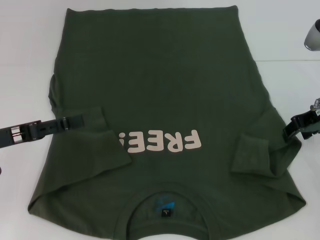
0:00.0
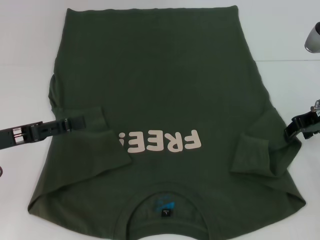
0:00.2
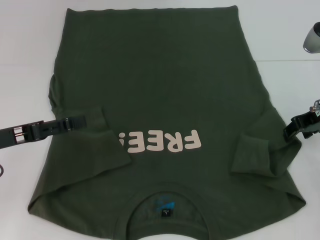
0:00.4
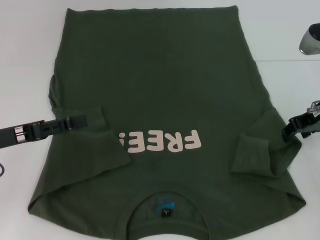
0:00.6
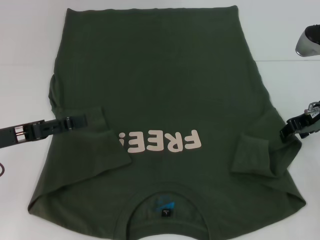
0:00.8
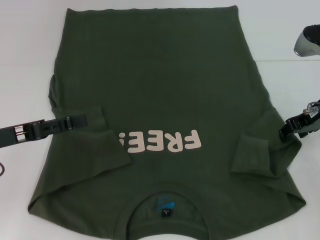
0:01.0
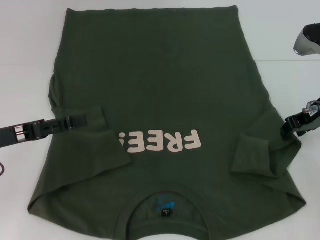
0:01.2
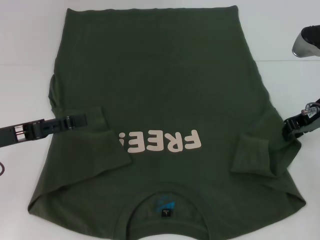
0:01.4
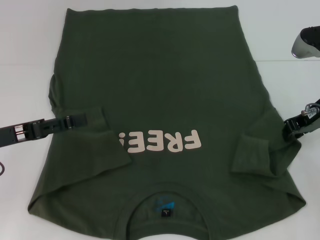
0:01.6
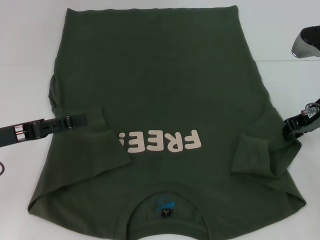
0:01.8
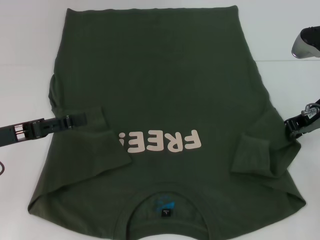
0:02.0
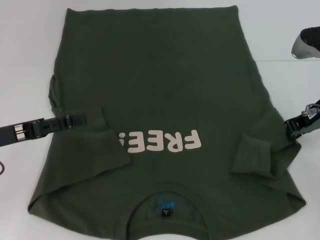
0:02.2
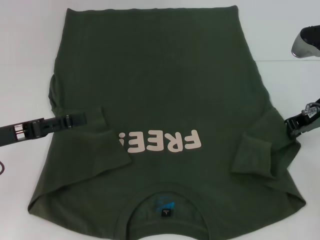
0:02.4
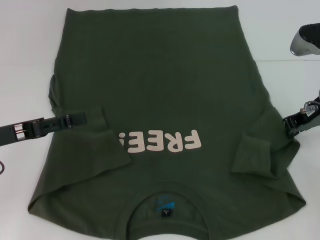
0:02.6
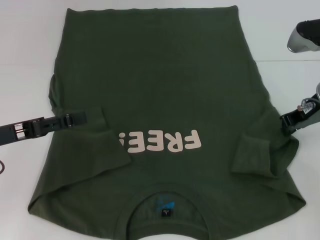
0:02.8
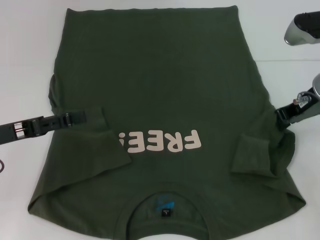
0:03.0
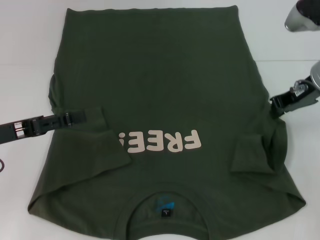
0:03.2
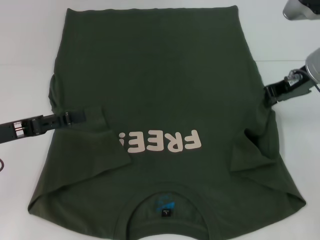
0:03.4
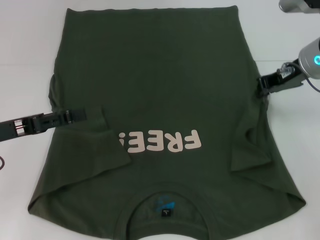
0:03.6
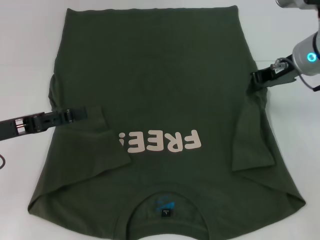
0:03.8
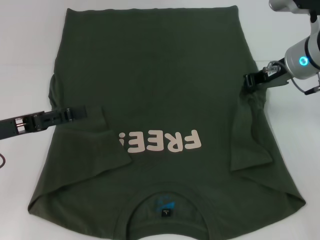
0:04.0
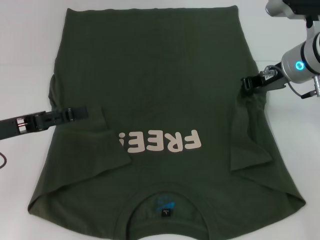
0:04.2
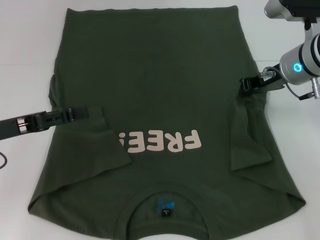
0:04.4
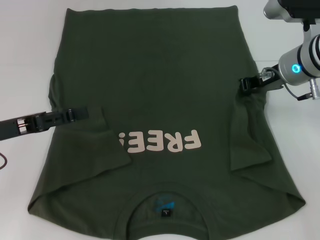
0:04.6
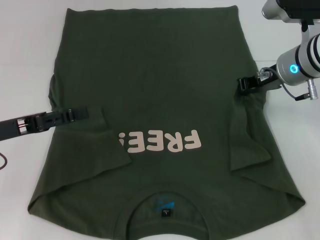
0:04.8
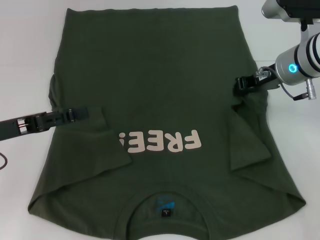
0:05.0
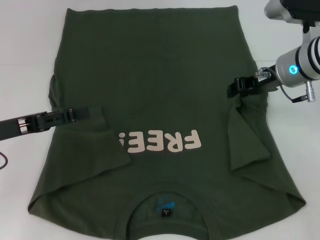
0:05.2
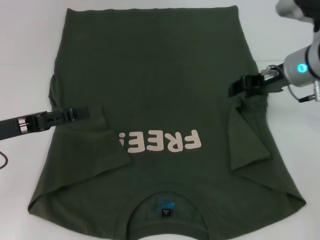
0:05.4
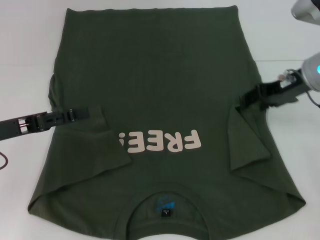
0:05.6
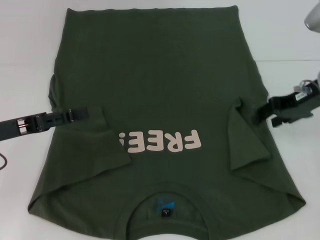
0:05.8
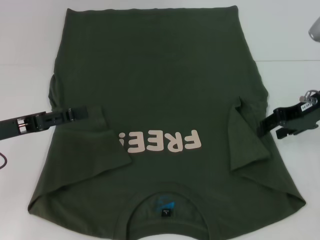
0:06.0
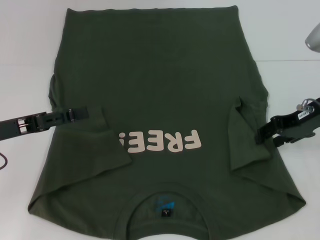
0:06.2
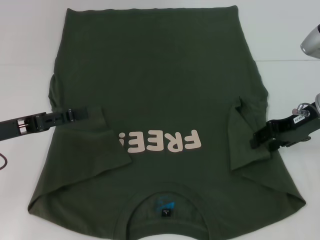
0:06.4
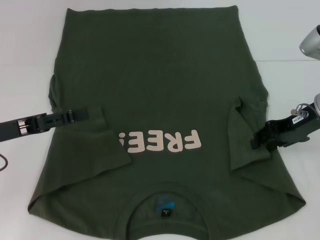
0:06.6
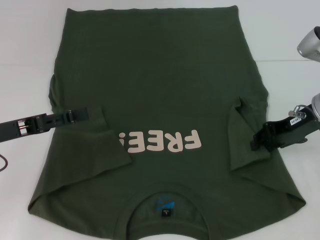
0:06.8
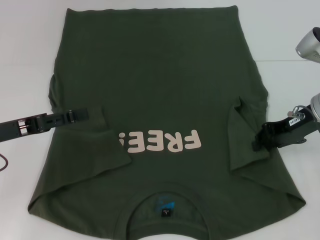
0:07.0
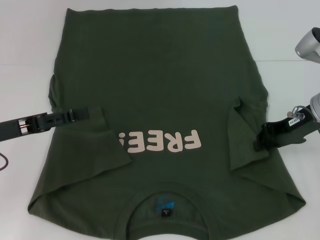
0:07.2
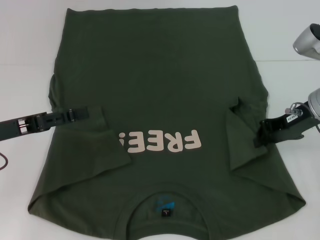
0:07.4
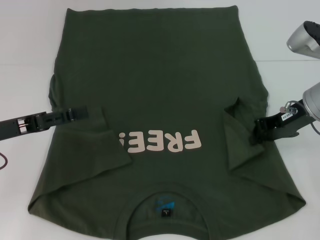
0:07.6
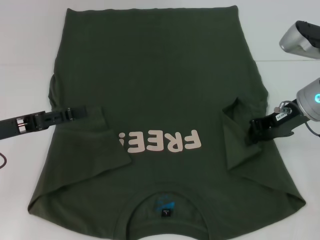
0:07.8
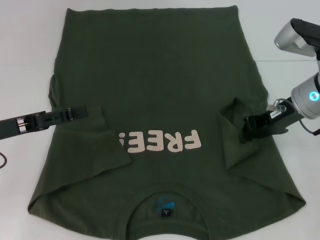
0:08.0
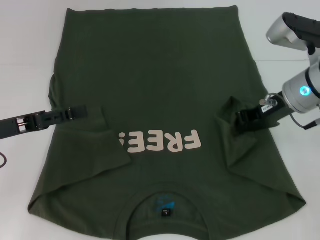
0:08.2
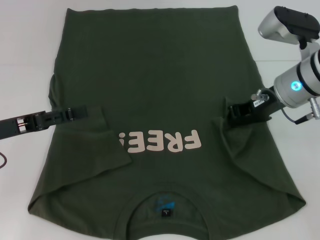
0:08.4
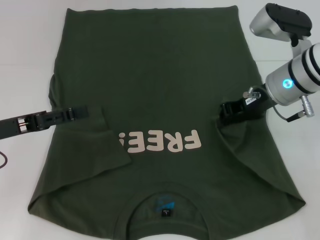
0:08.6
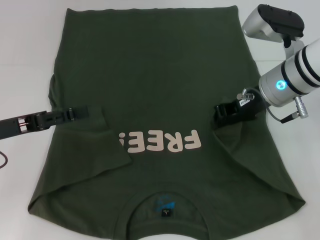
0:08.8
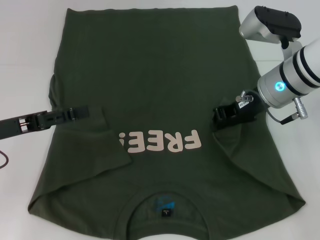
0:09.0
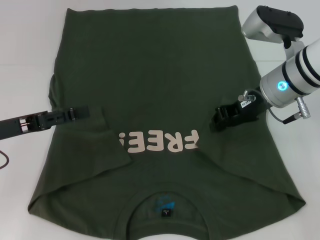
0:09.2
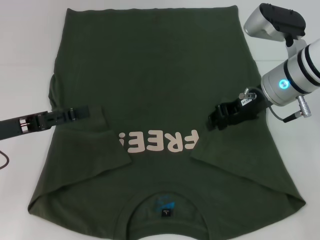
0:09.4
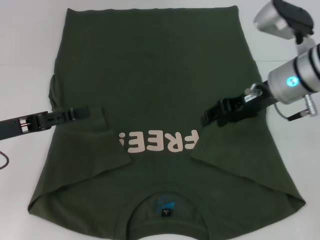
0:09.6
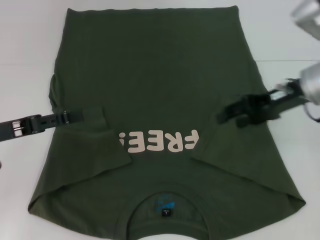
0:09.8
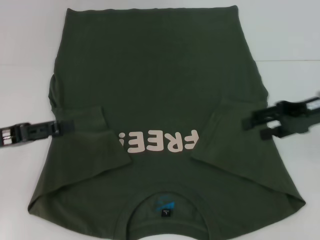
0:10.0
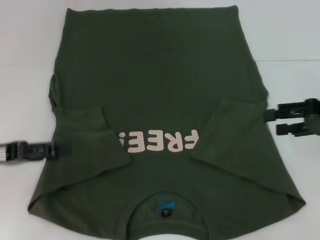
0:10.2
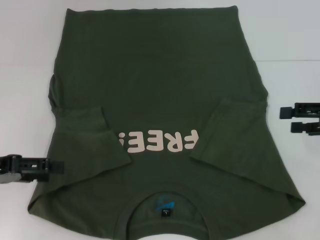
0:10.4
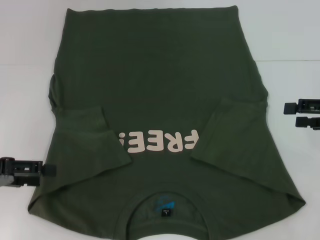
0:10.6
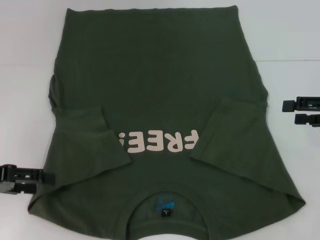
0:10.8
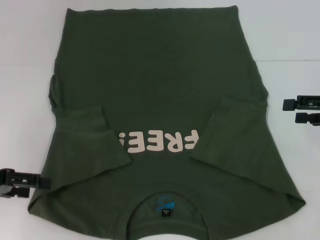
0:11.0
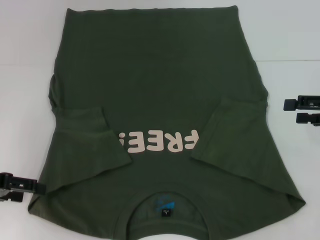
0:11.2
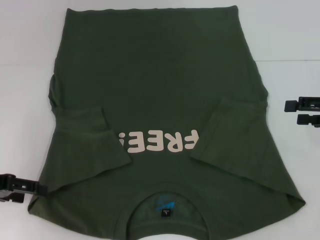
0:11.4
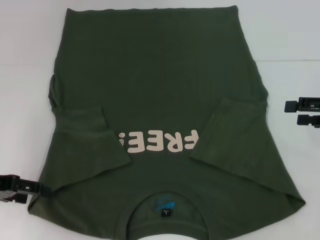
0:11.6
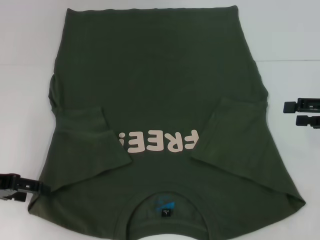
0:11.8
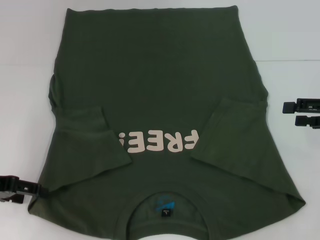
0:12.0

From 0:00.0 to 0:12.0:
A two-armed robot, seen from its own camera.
Step, from 0:00.0 to 0:09.8: Fold the bottom right sleeve with your right hand.
From 0:00.0 to 0:03.0: The grippers make only small movements.
From 0:03.0 to 0:04.4: The grippers stay close to where they were, moving slightly.
From 0:04.4 to 0:06.0: The right gripper is displaced to the right by approximately 5 cm, and opens its fingers.
From 0:06.0 to 0:07.6: The right gripper closes up.
From 0:07.6 to 0:09.0: The right gripper goes roughly 5 cm to the left.
From 0:09.0 to 0:10.4: The right gripper is displaced to the right and backward by roughly 20 cm, and opens.

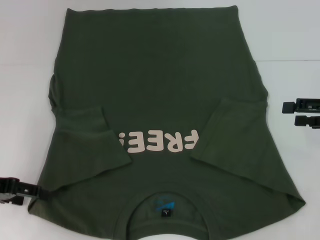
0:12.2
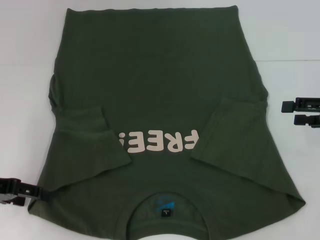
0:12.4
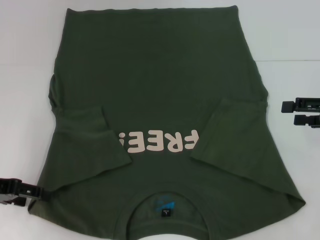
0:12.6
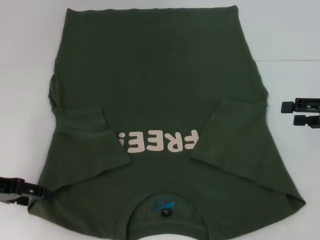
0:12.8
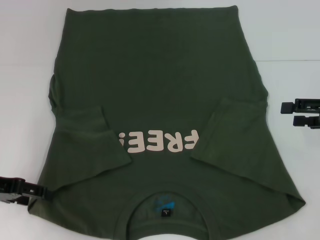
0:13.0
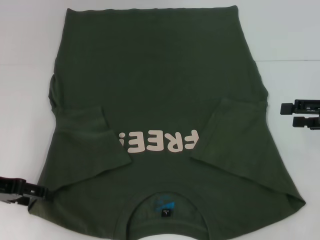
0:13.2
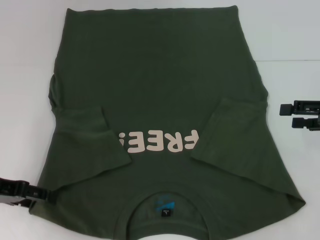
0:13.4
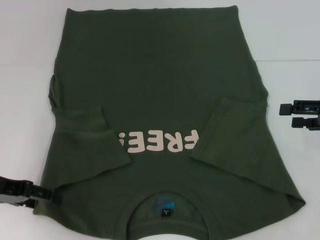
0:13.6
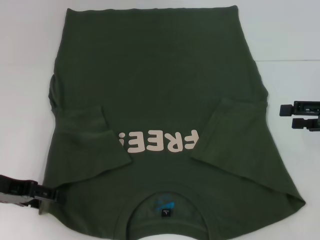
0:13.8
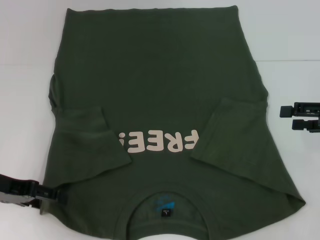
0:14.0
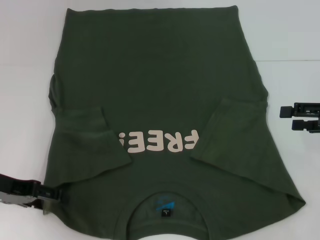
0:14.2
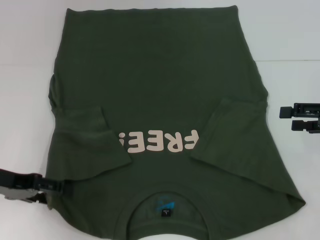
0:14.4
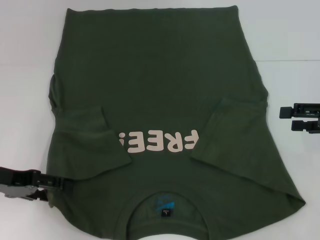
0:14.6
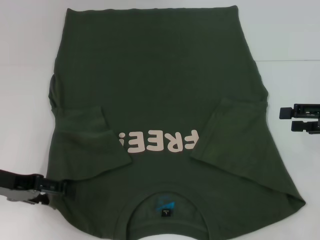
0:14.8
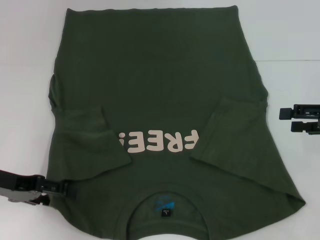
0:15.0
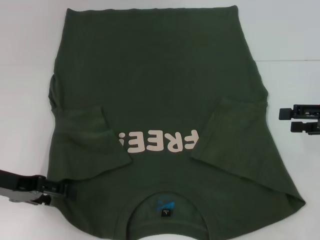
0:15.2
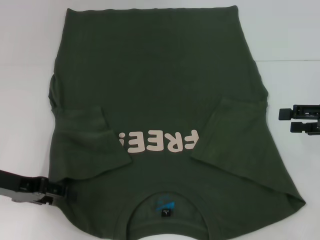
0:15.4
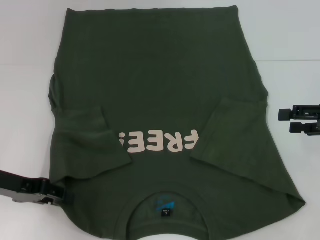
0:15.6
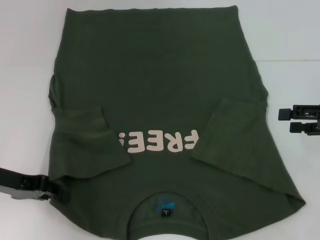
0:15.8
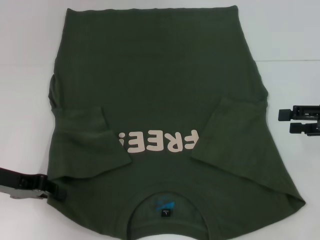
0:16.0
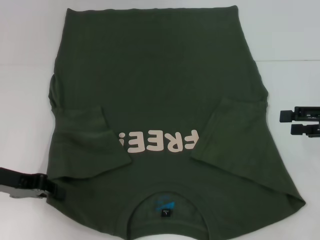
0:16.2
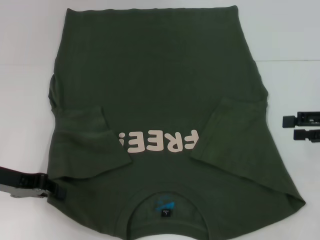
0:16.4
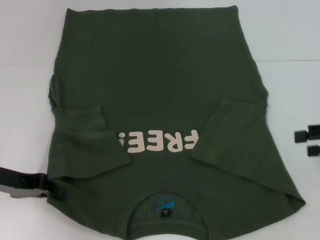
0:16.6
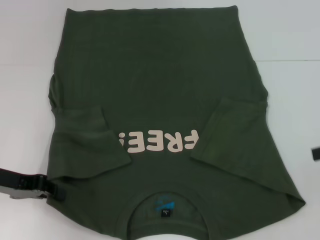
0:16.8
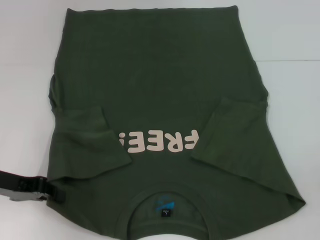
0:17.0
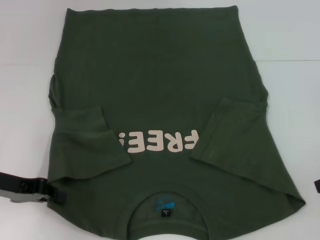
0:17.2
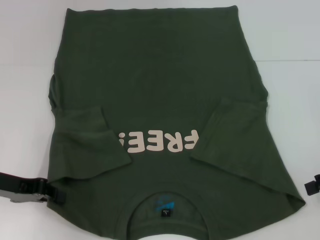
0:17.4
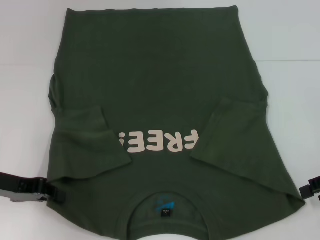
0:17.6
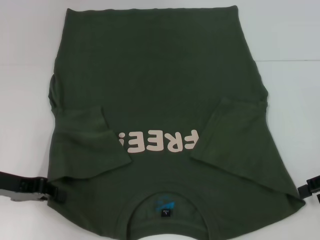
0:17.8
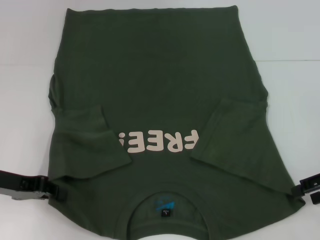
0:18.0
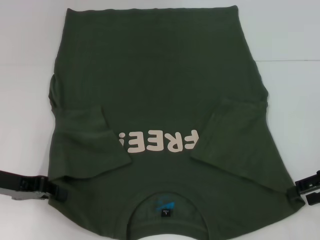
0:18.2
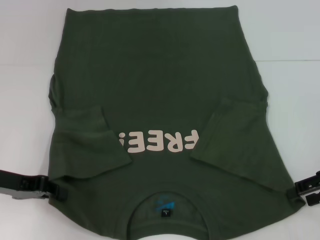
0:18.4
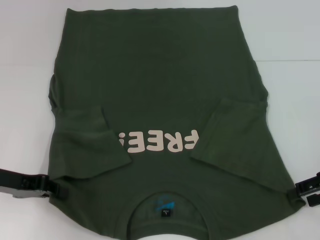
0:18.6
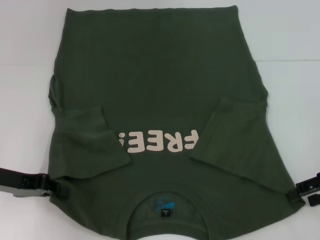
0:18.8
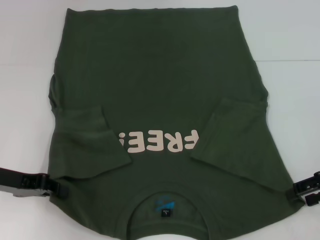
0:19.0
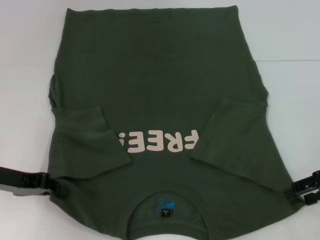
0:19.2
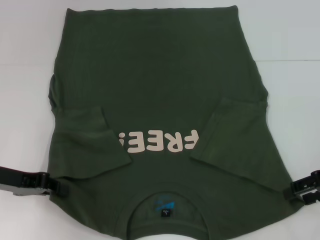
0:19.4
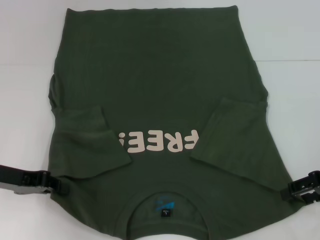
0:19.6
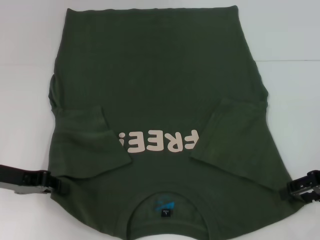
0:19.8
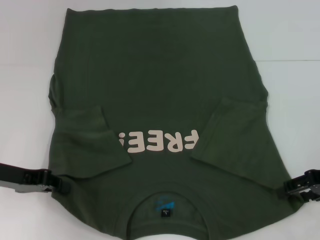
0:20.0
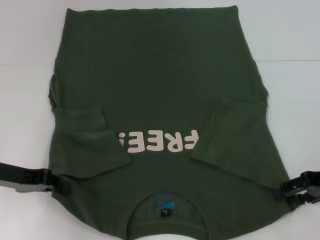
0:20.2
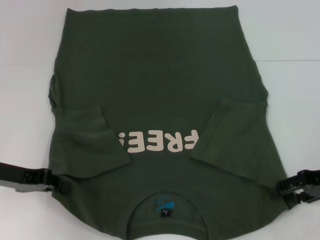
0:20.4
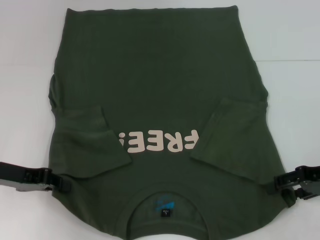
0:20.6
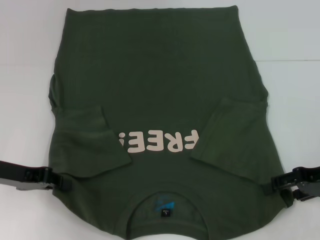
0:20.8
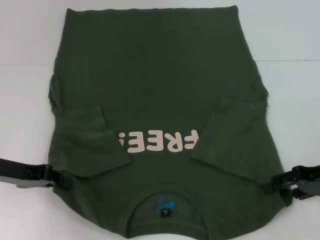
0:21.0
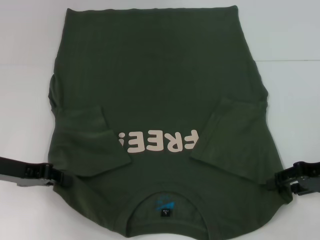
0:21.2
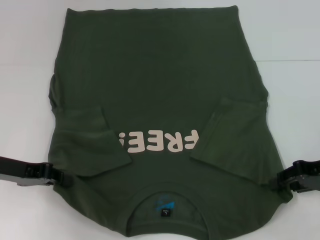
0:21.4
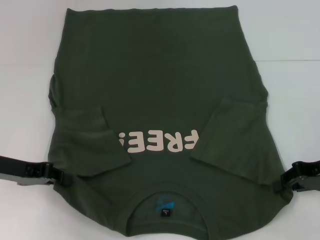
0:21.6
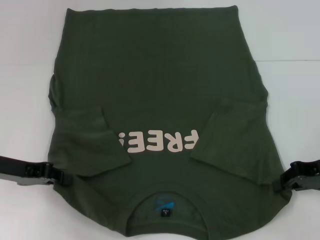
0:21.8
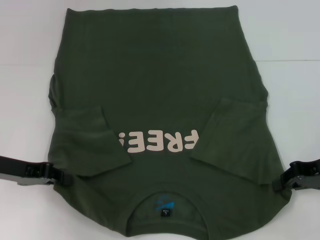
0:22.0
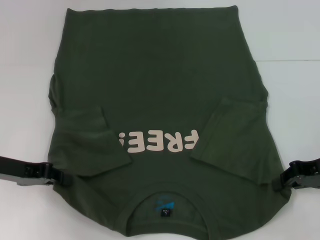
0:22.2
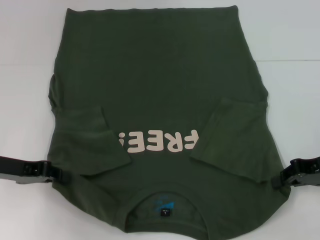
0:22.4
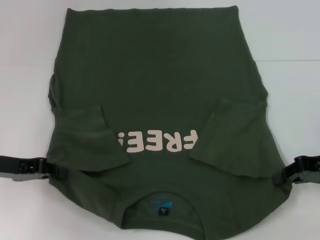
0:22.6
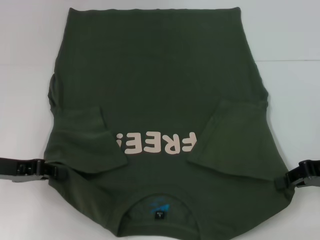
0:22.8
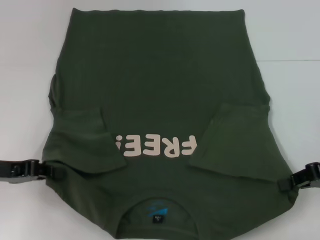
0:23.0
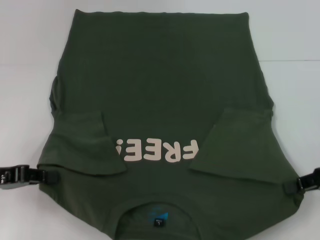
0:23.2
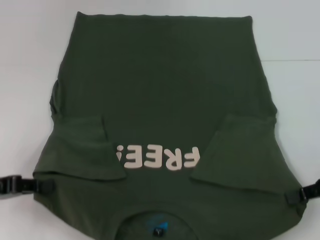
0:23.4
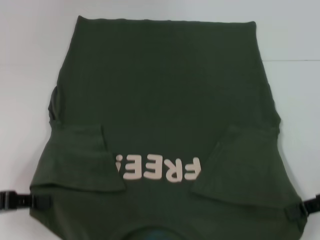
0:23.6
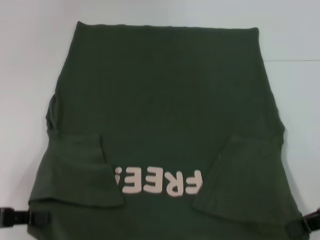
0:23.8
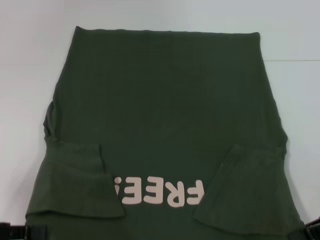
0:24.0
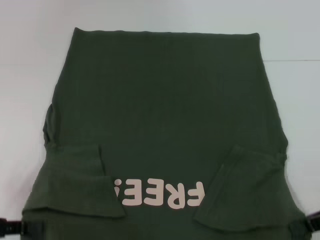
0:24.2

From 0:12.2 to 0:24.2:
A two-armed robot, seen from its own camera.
Step, from 0:12.2 to 0:16.6: Grab the bottom left corner with your left hand.
Step, from 0:16.8 to 0:22.2: Grab the bottom right corner with your right hand.
From 0:12.2 to 0:15.2: The grippers make only small movements.
From 0:15.2 to 0:16.6: The left gripper closes up.
From 0:18.2 to 0:21.2: The grippers stay close to where they were, moving slightly.
From 0:21.2 to 0:22.6: The right gripper closes up.
From 0:22.6 to 0:24.2: The right gripper goes about 5 cm backward; the left gripper shifts about 10 cm backward.
